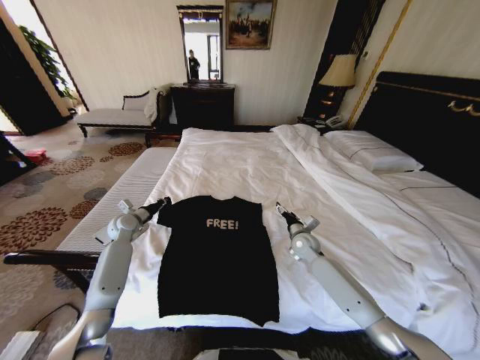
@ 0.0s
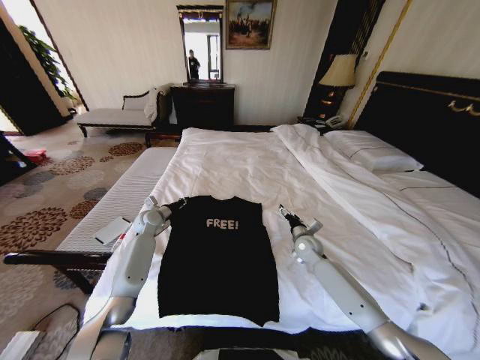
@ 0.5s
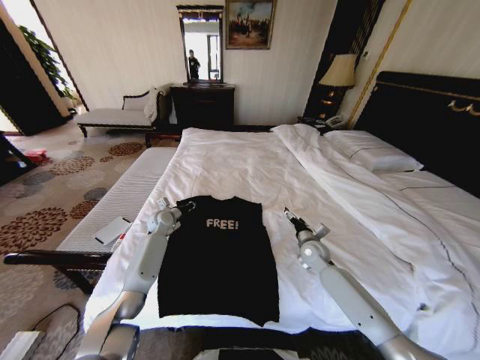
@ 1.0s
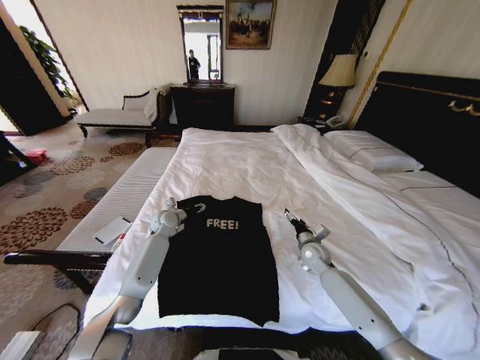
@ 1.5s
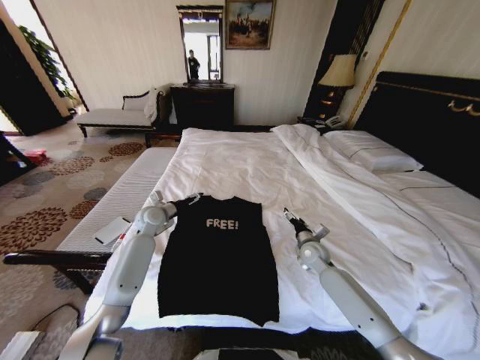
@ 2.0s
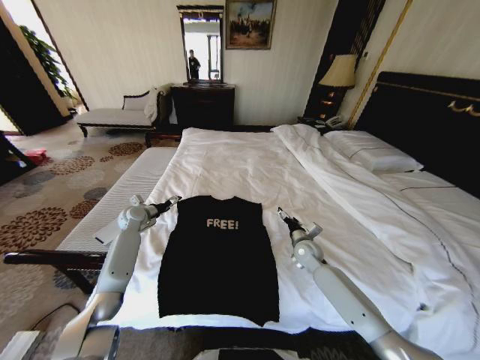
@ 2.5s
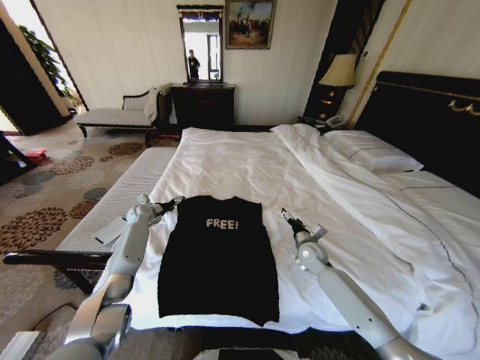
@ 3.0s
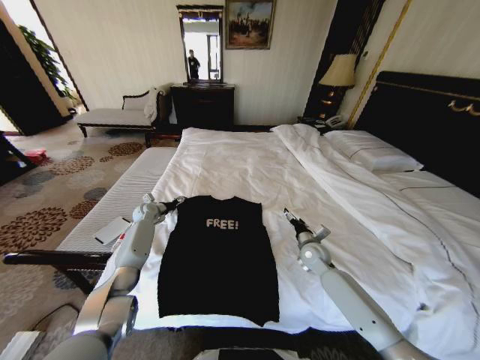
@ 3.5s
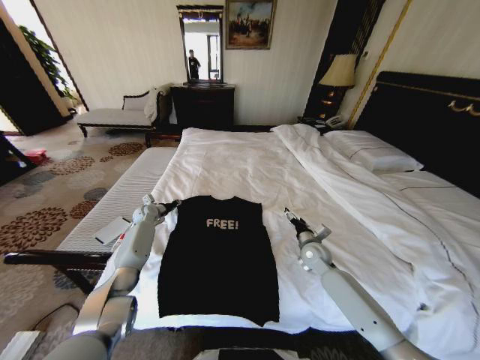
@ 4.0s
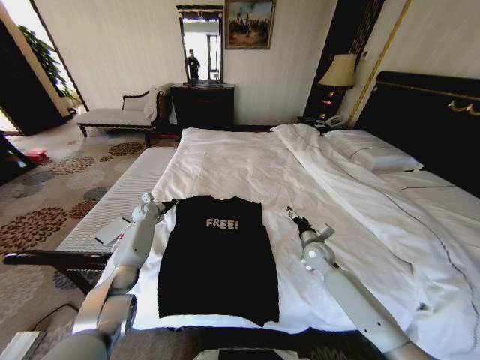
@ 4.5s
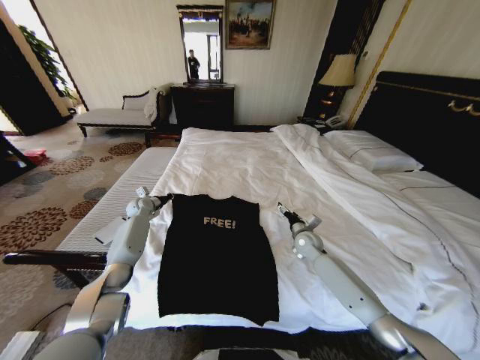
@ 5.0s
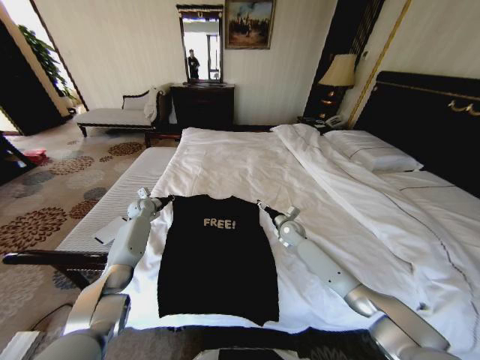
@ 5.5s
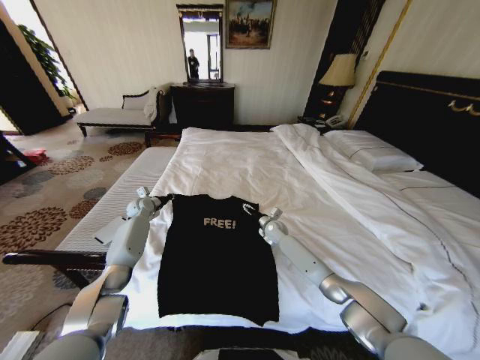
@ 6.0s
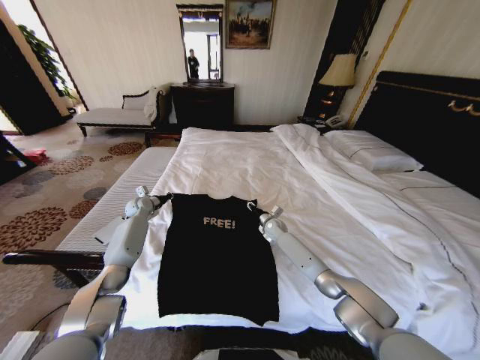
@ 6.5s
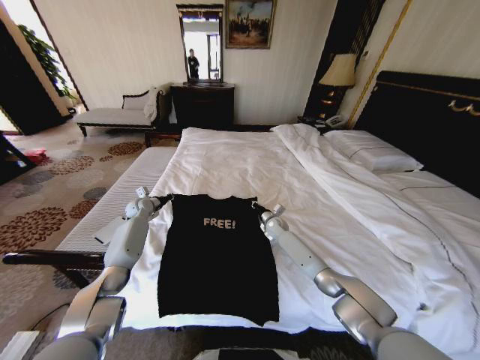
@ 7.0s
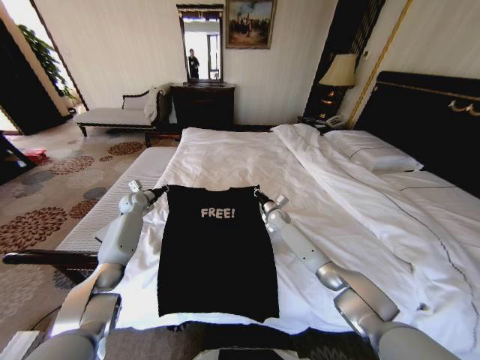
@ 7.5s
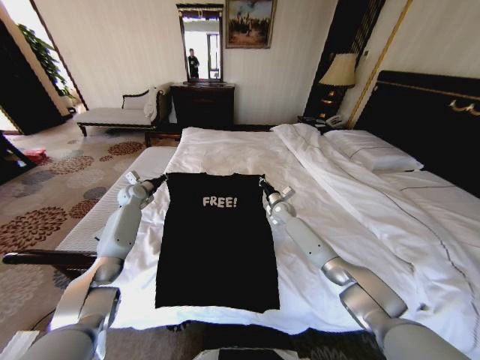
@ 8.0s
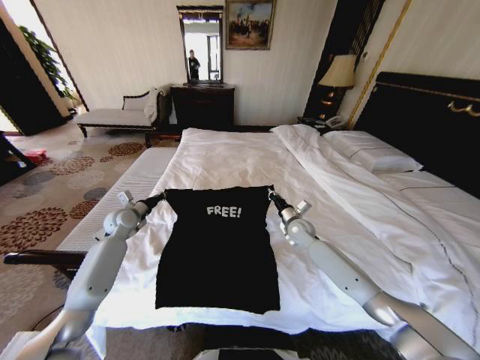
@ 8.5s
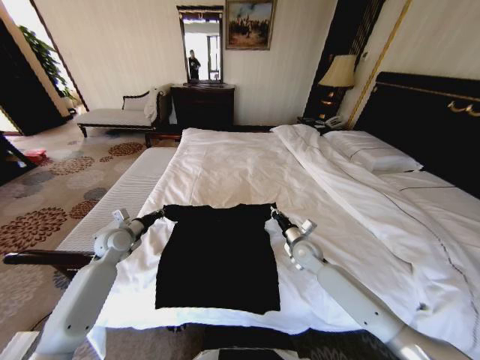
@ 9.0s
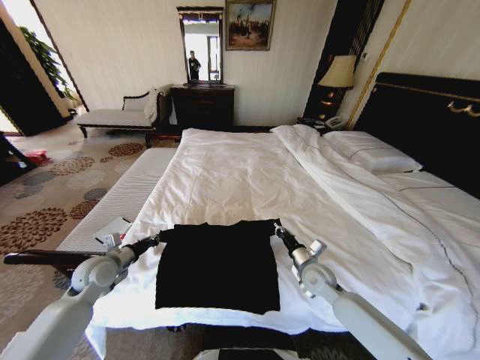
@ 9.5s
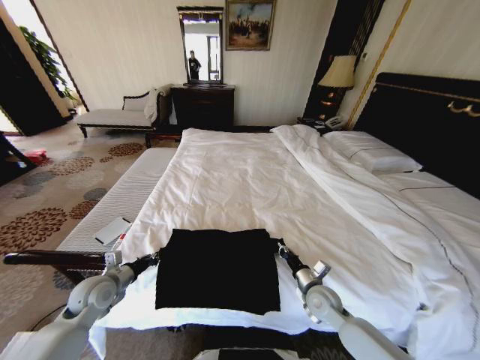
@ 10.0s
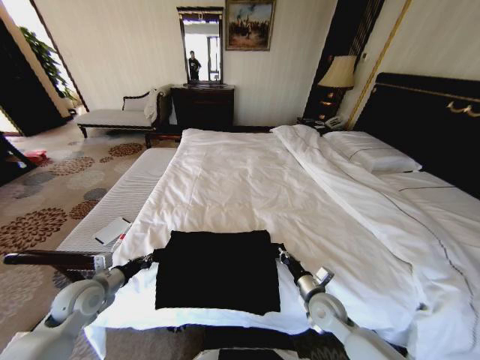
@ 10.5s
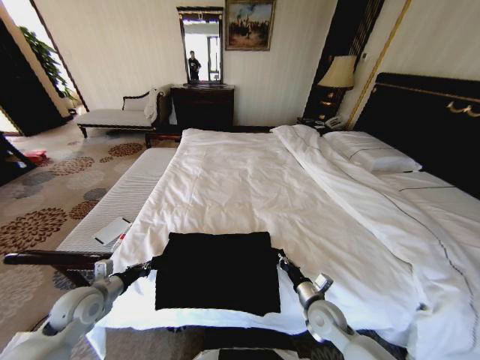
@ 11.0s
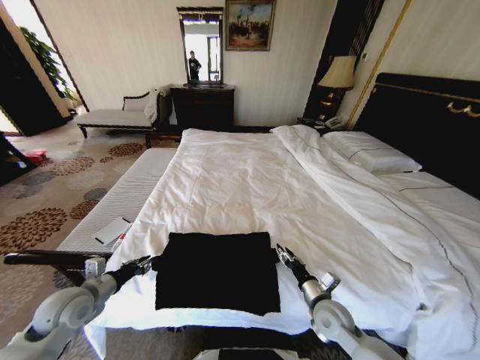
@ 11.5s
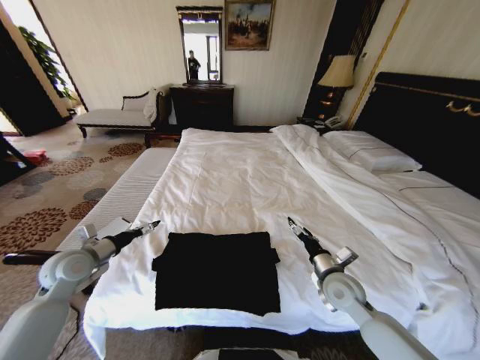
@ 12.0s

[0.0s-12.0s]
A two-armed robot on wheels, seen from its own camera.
Task of the whole recording: Fold the clothes on the bed.
0.0s to 2.0s: The left gripper heads to the right, covering roughly 10 cm, and opens.
2.0s to 4.0s: The left gripper is displaced forward, to the left and downward by about 15 cm, and closes.
4.0s to 6.0s: The right gripper shifts about 15 cm forward and to the left.
6.0s to 8.0s: The two grippers go approximately 5 cm upward. The right gripper closes up.
8.0s to 10.0s: Both grippers move backward, roughly 30 cm.
10.0s to 12.0s: Both grippers move upward, about 10 cm. The left gripper opens up; the right gripper opens up.

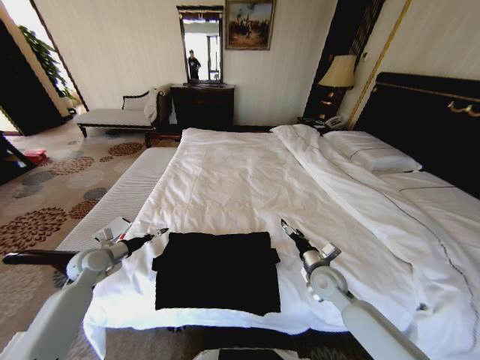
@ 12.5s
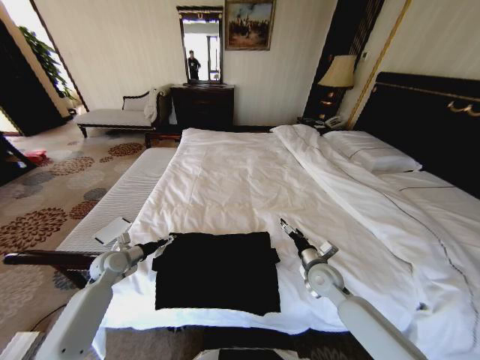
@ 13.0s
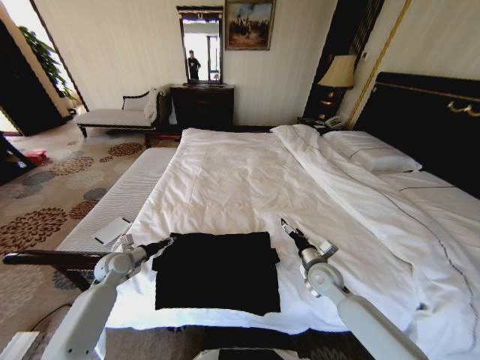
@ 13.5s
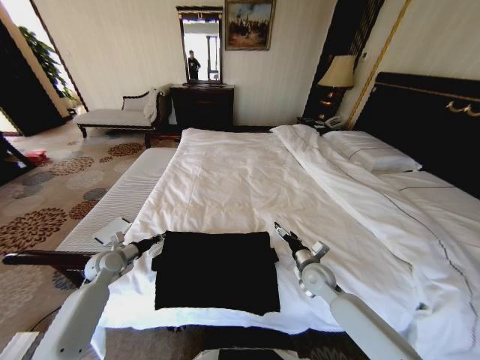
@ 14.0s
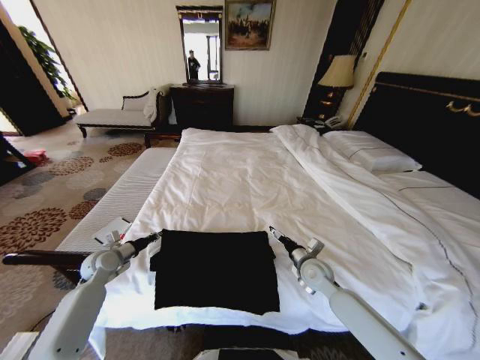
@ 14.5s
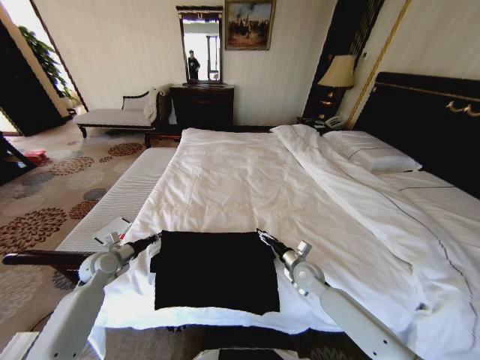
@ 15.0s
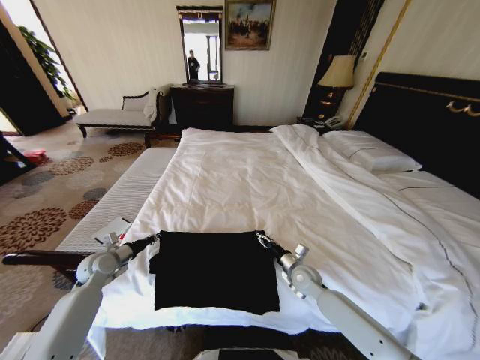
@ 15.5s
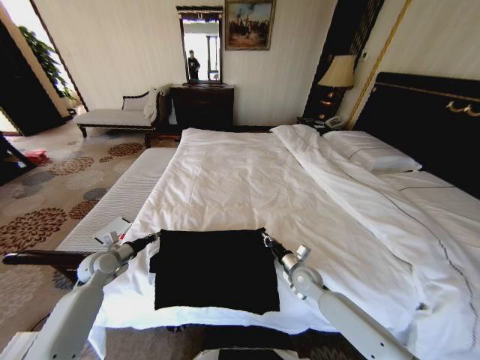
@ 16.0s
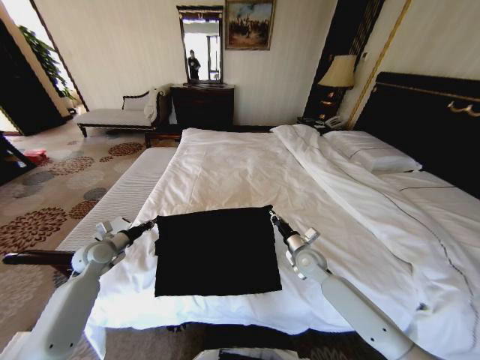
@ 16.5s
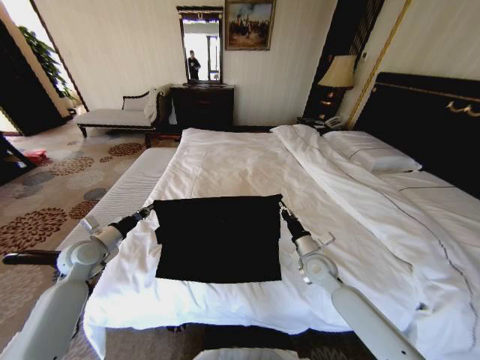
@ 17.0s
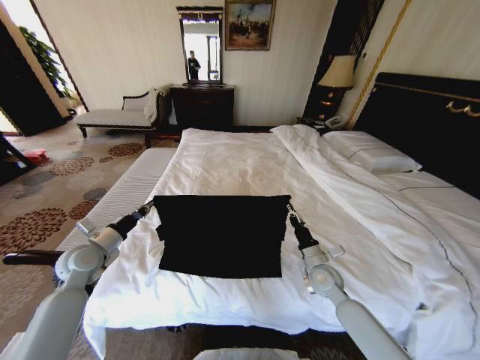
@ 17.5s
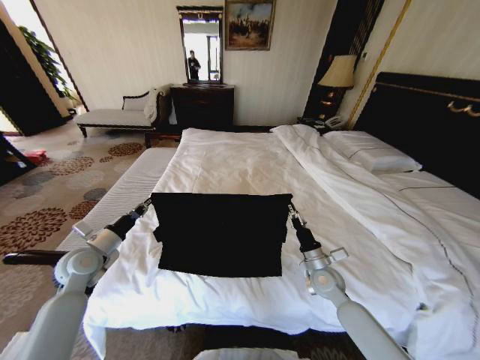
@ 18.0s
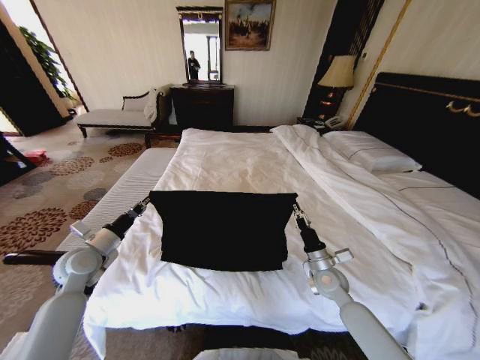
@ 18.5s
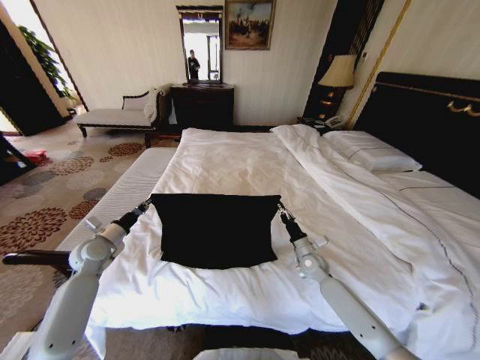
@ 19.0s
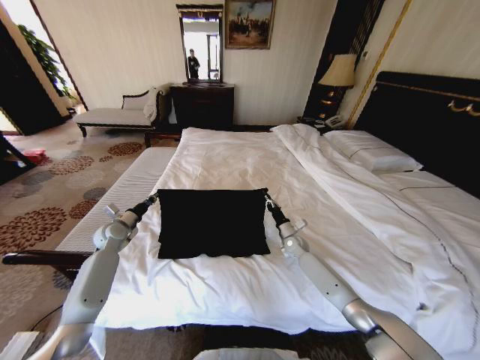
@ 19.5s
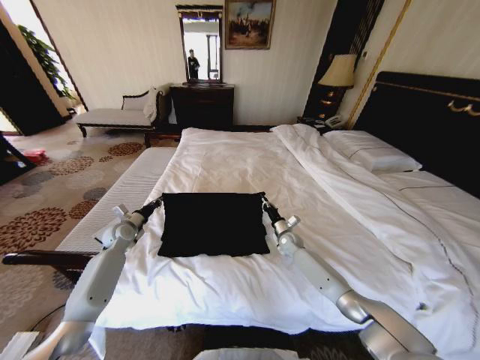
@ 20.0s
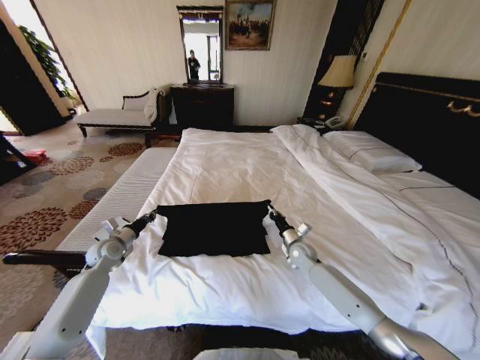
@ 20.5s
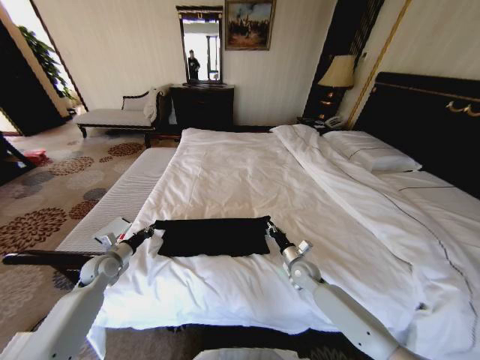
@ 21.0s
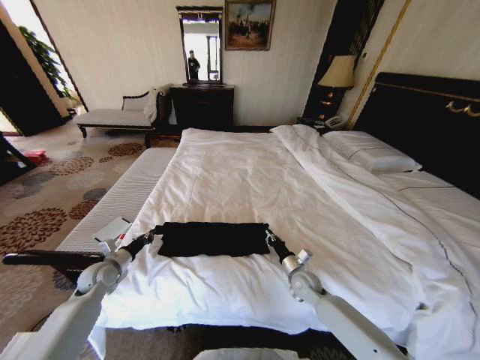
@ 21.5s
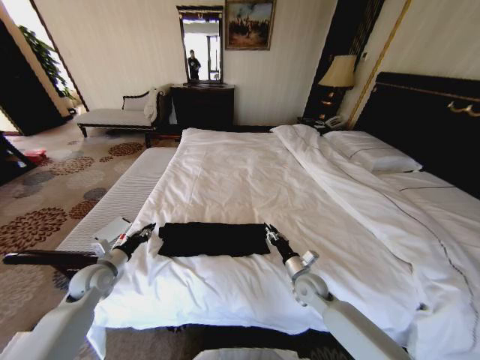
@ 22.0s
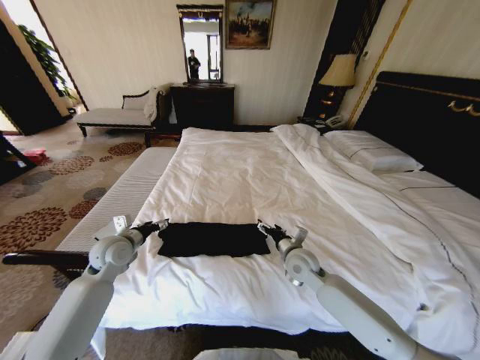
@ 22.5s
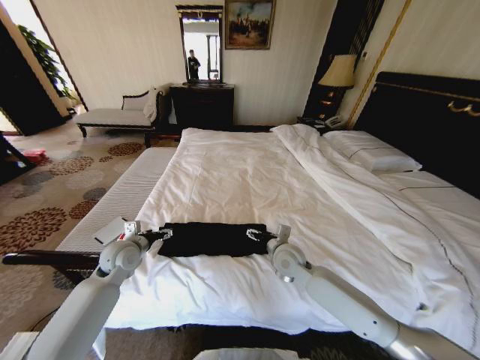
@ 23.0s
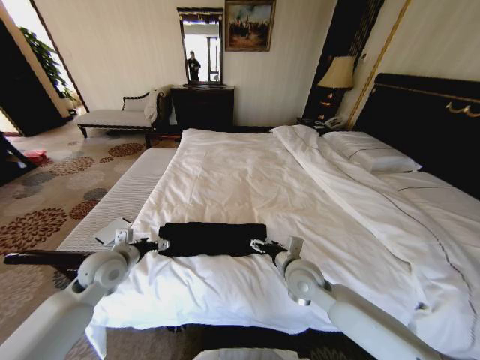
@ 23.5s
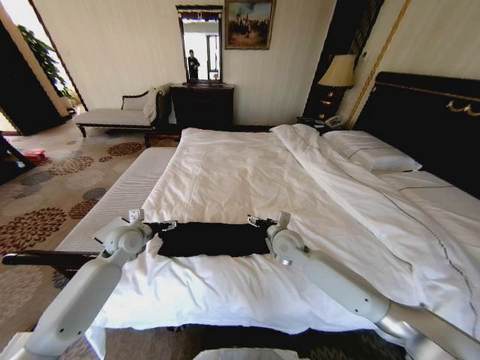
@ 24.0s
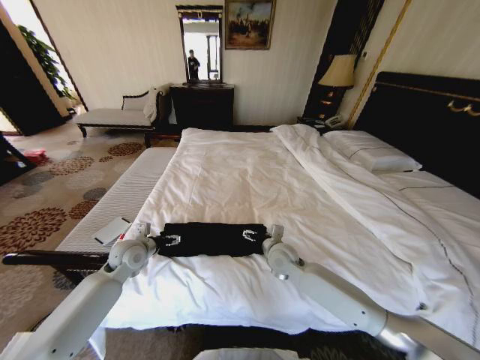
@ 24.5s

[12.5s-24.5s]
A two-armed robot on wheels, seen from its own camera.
Task of the whole recording: Fold the clothes on the bed.
12.5s to 14.5s: The left gripper closes.
14.5s to 16.5s: The right gripper closes.
16.5s to 18.5s: The right gripper is displaced backward by about 5 cm; the left gripper shifts by some 5 cm.
18.5s to 20.5s: The left gripper travels forward and downward by some 10 cm, while the right gripper moves forward, roughly 10 cm.
20.5s to 22.5s: The right gripper moves upward, backward and to the left, about 15 cm, and opens its fingers. The left gripper heads upward and to the right, covering approximately 10 cm, and opens.
22.5s to 24.5s: The right gripper travels to the left by some 5 cm, and moves roughly 5 cm forward and comes back. Meanwhile the left gripper travels backward and back again, roughly 5 cm each way.

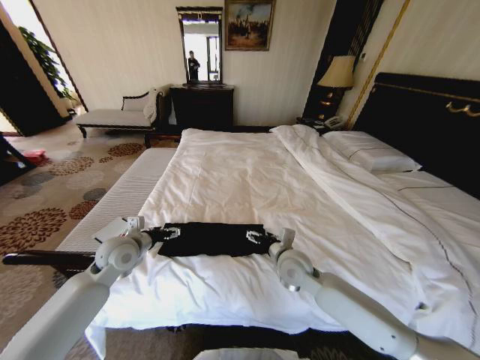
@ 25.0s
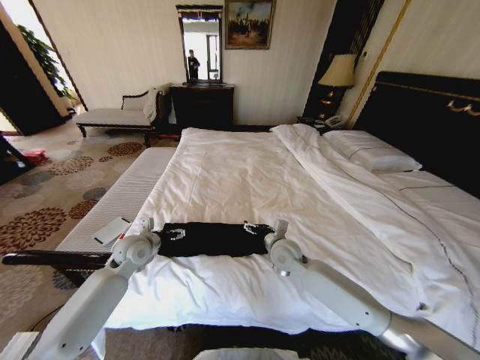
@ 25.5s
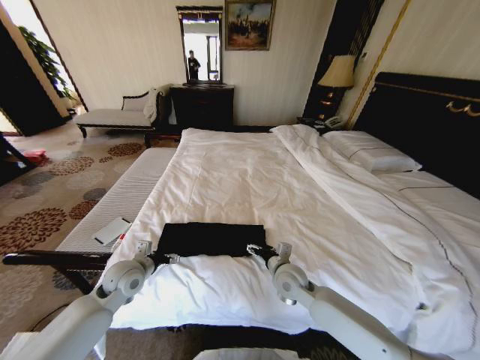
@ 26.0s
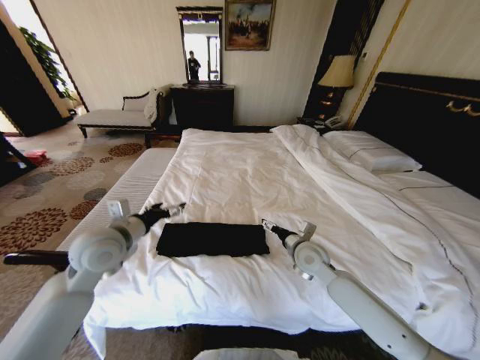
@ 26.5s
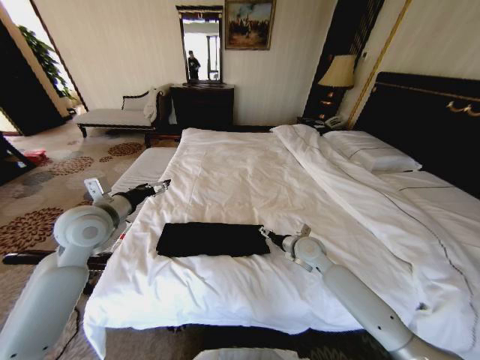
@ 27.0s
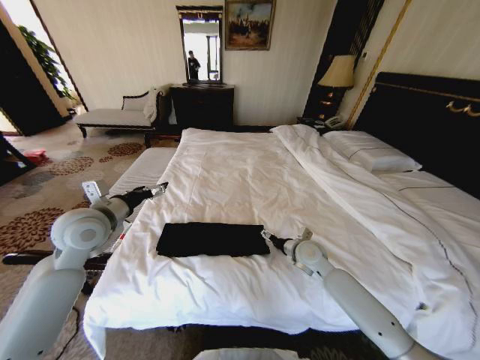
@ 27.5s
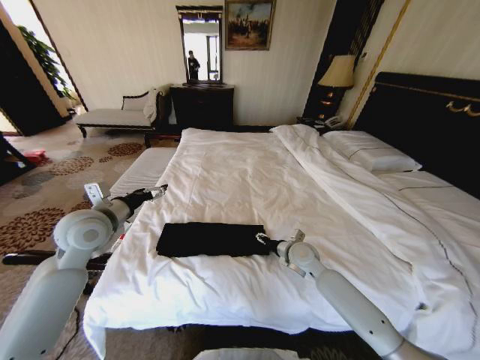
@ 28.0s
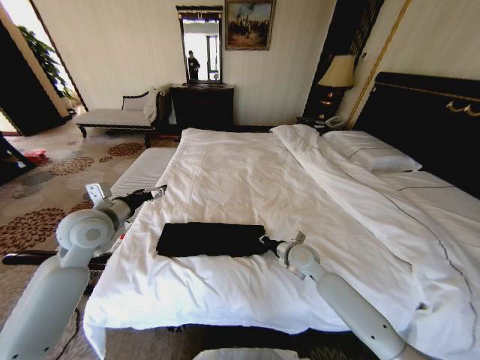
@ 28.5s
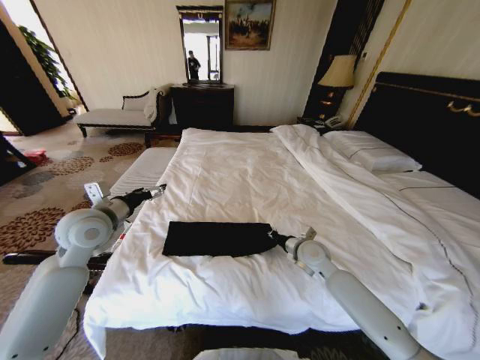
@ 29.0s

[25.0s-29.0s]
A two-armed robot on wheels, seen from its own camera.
Task of the whole recording: Fold the clothes on the bed.
25.0s to 27.0s: The right gripper goes approximately 10 cm to the right and forward; the left gripper heads upward, covering approximately 15 cm.
27.0s to 29.0s: The right gripper closes its fingers.
